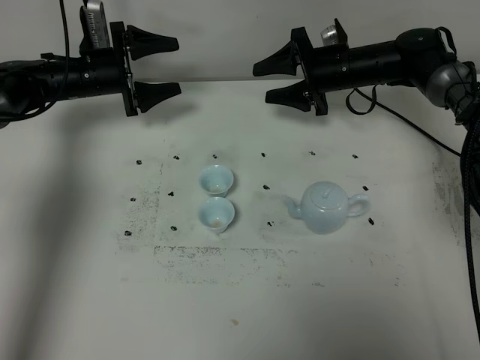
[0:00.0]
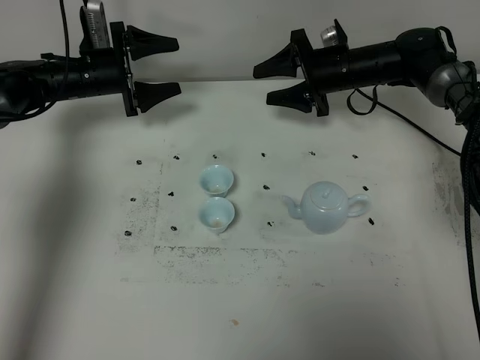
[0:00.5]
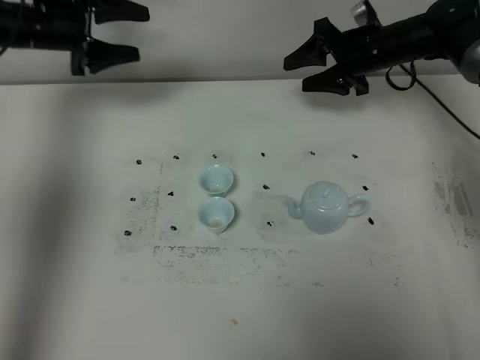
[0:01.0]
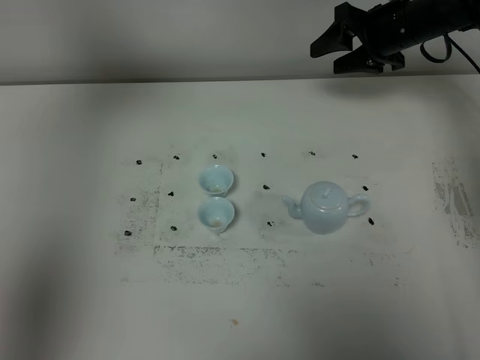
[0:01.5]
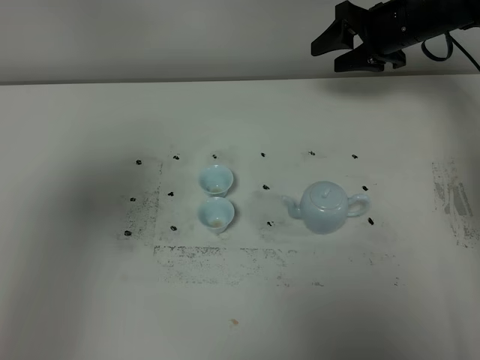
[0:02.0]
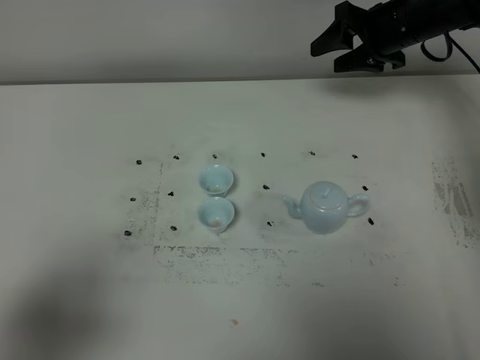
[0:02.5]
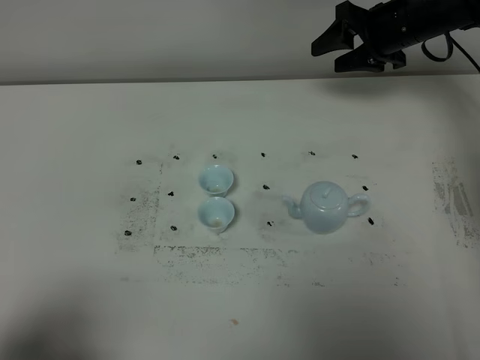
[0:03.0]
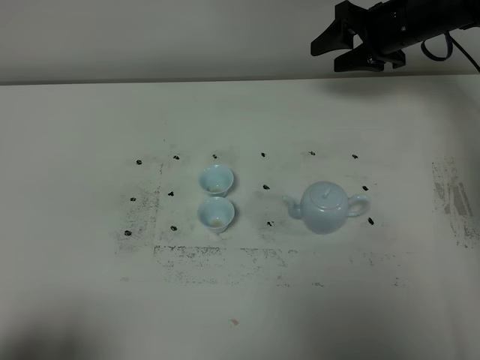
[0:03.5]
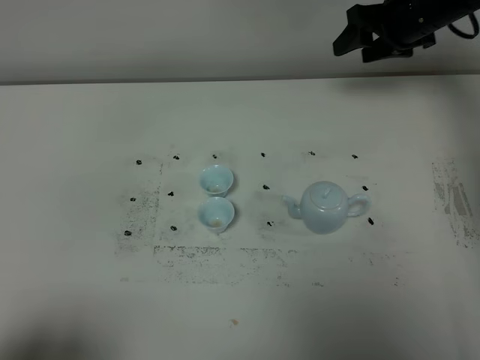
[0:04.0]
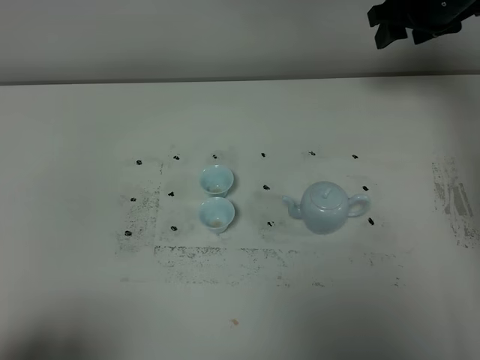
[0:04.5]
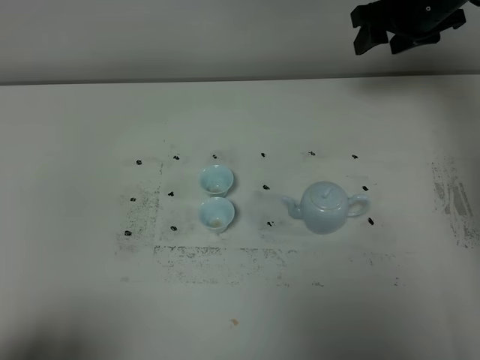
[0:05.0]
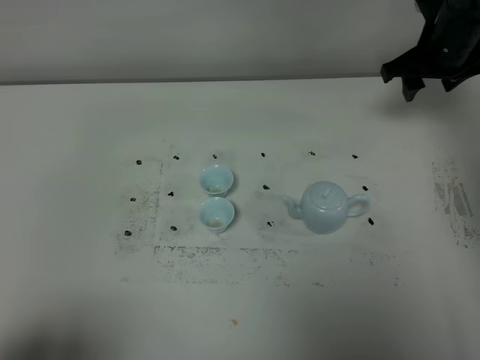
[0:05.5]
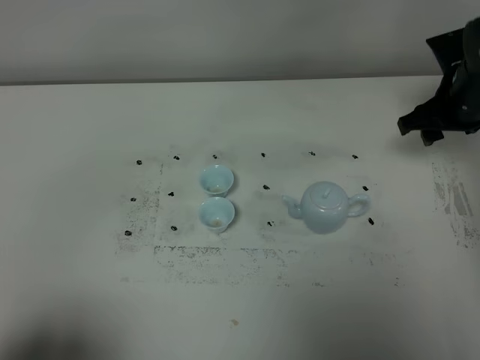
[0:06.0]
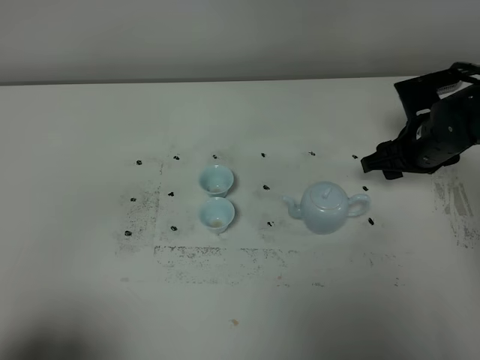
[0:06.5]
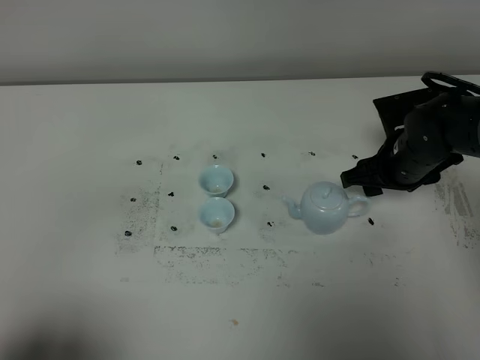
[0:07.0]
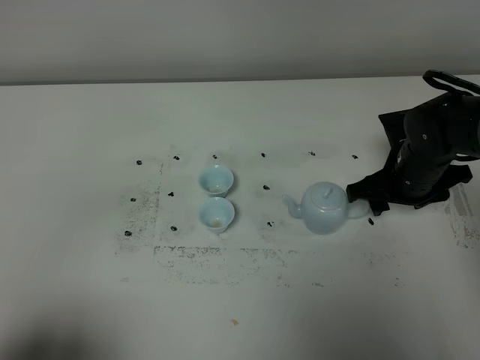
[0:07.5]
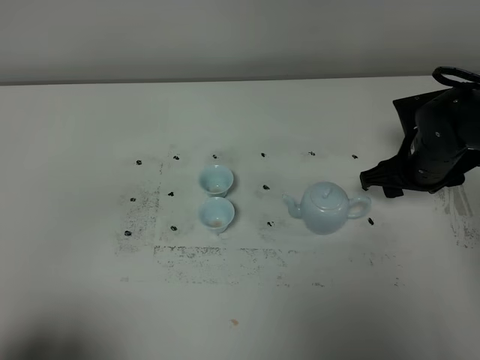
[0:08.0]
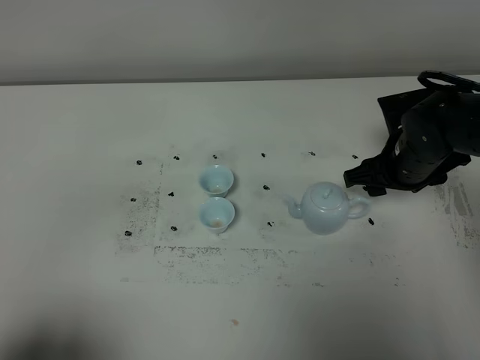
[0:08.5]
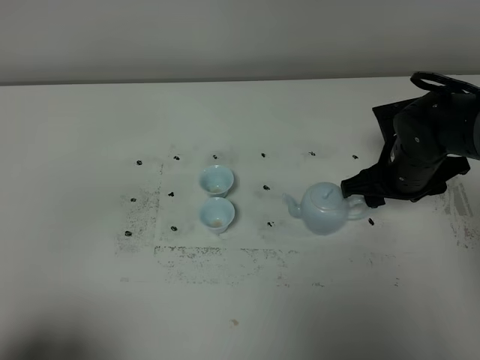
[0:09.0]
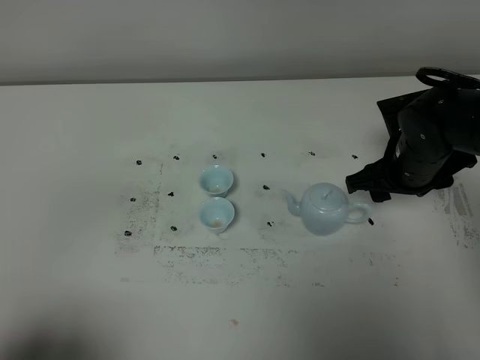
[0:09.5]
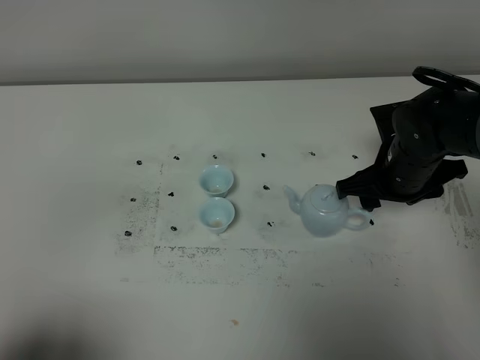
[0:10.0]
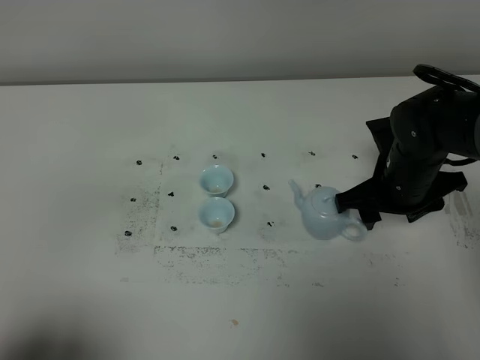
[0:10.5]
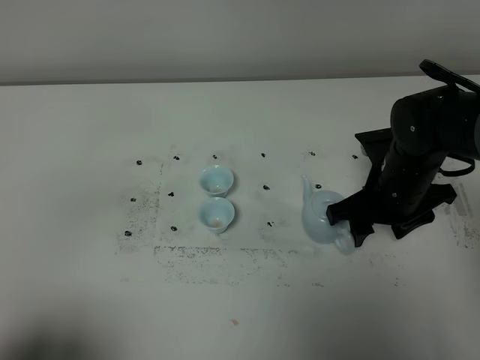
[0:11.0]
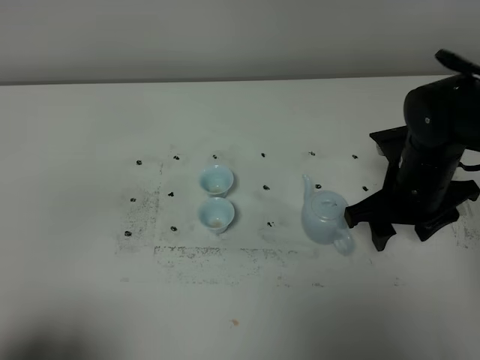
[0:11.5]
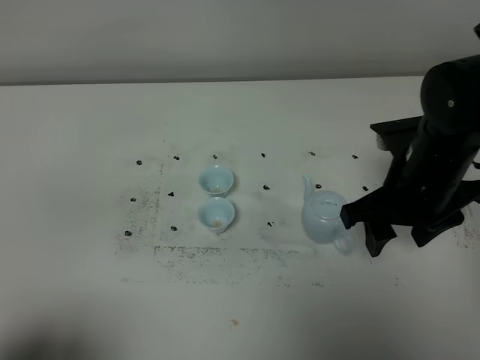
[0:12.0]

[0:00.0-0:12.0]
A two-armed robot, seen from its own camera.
Task of the whole recording: grasp the blue porcelain teapot and pour the tea into the two blue porcelain teacups one by one, put the blue porcelain teapot back in its original place.
0:00.0 to 0:02.0: The left gripper shifts approximately 50 cm backward and upward. The right gripper moves upward and to the right, about 10 cm.
0:02.0 to 0:04.0: The left gripper goes approximately 25 cm backward and downward.
0:04.0 to 0:06.0: The right gripper heads backward and downward, covering approximately 10 cm.
0:06.0 to 0:08.0: The right gripper travels downward and to the left by approximately 5 cm.
0:08.0 to 0:10.0: The grippers move only a little.
0:10.0 to 0:12.0: The right gripper shifts about 10 cm backward and upward.

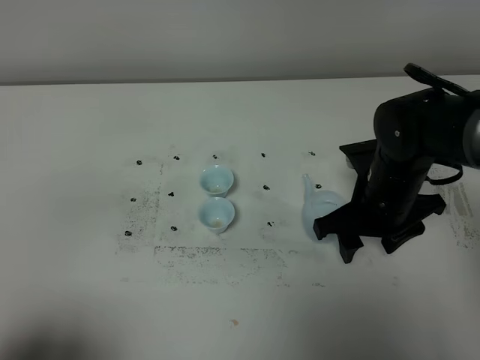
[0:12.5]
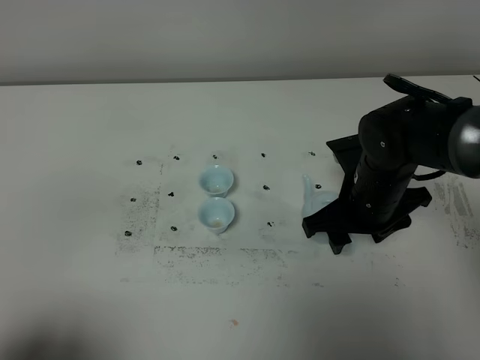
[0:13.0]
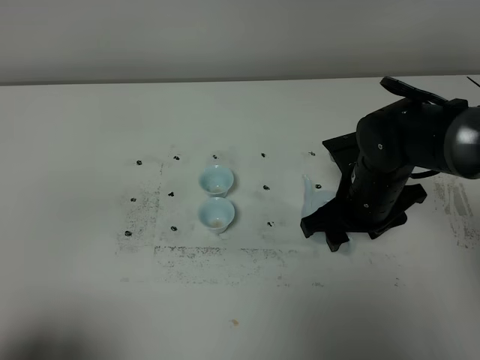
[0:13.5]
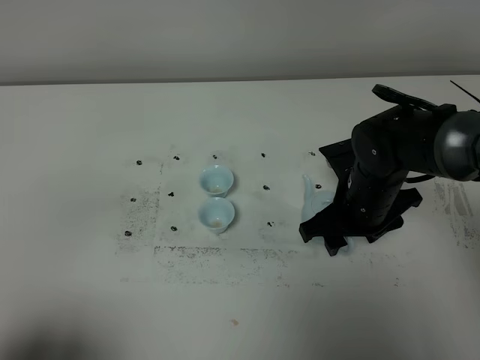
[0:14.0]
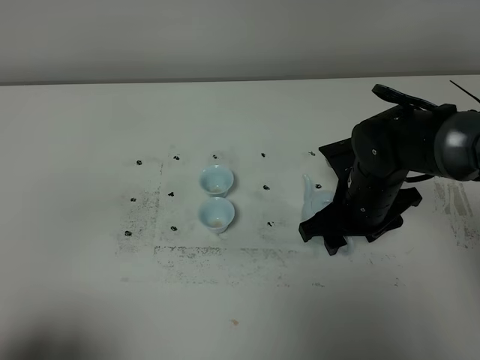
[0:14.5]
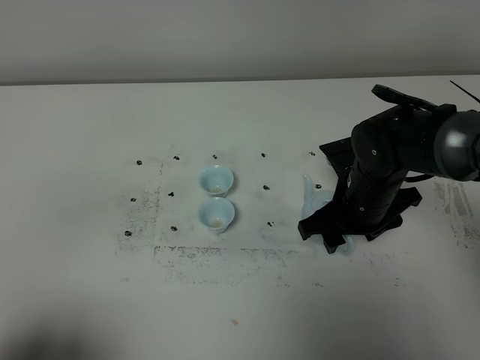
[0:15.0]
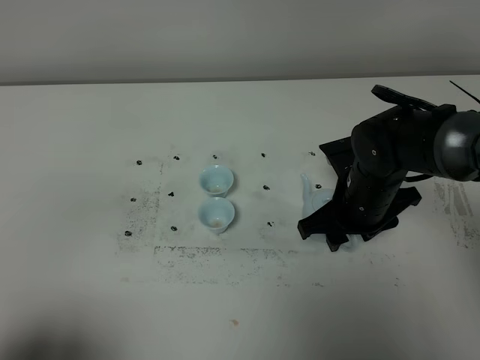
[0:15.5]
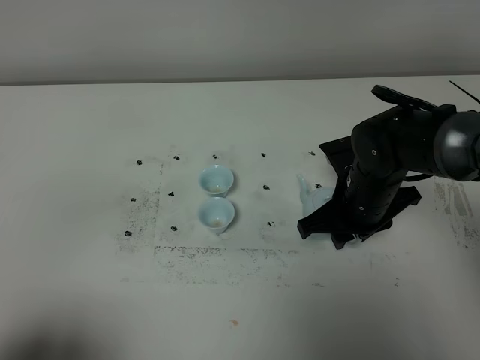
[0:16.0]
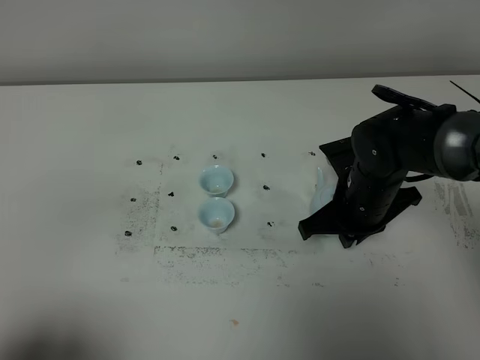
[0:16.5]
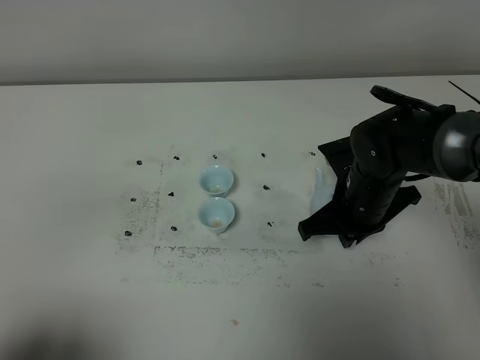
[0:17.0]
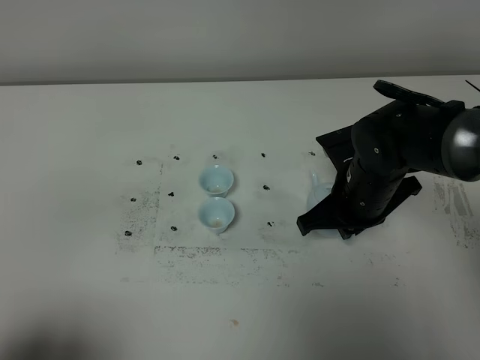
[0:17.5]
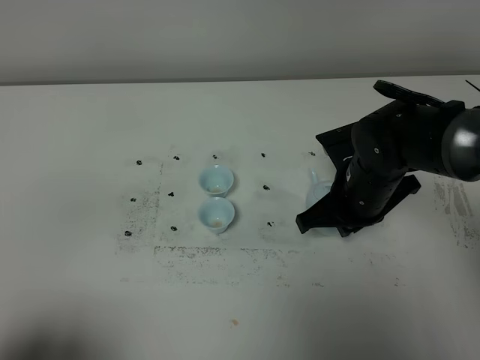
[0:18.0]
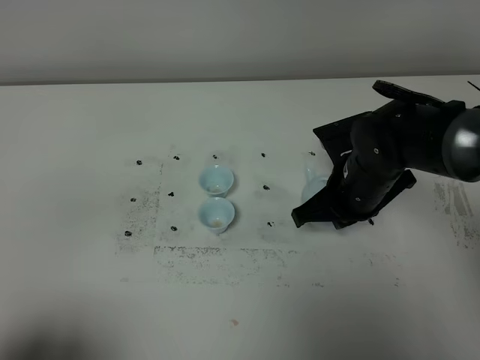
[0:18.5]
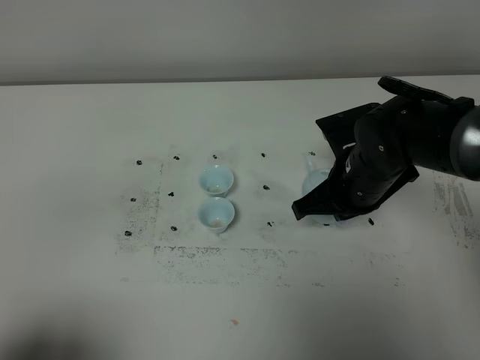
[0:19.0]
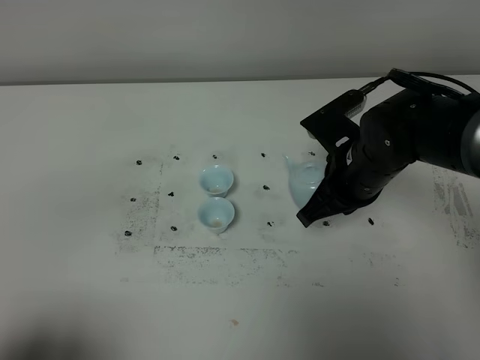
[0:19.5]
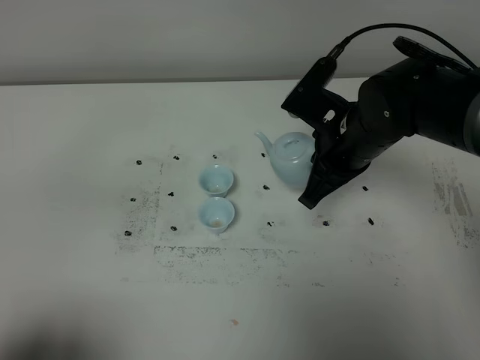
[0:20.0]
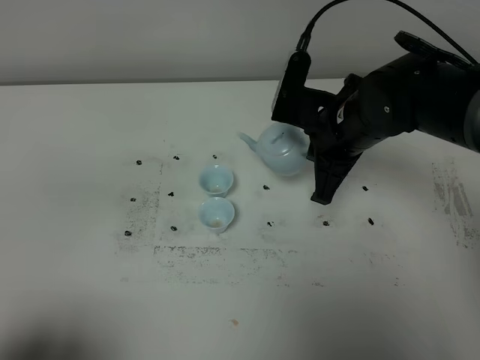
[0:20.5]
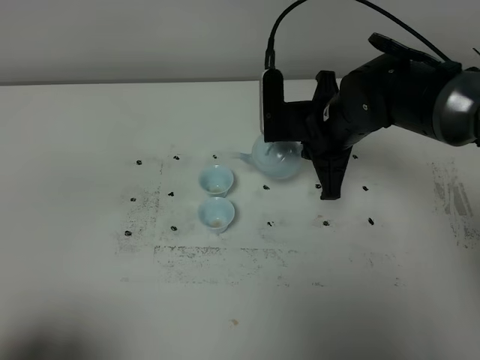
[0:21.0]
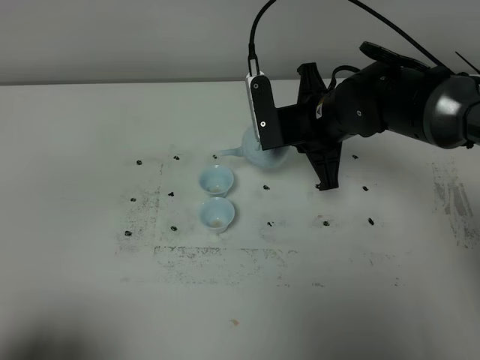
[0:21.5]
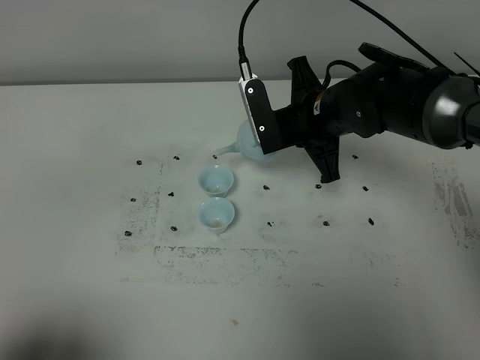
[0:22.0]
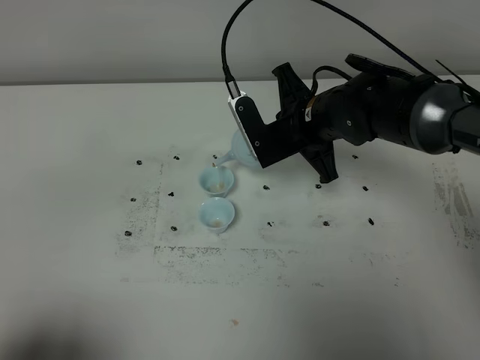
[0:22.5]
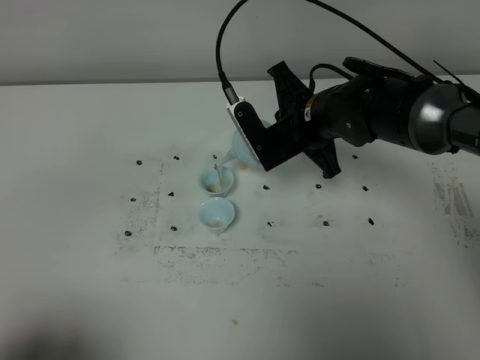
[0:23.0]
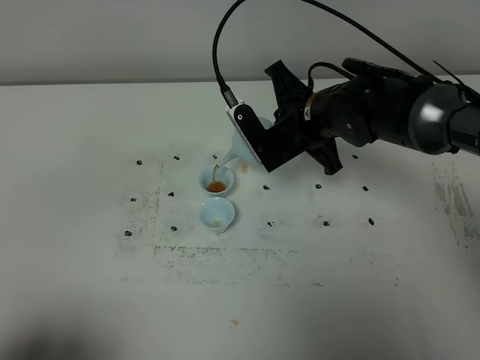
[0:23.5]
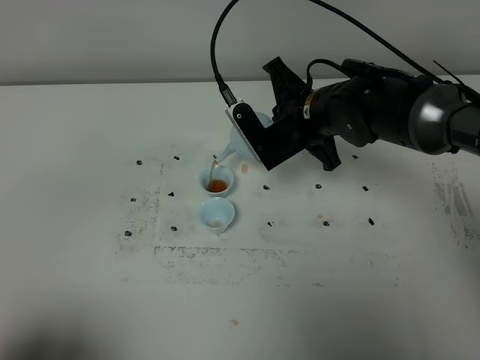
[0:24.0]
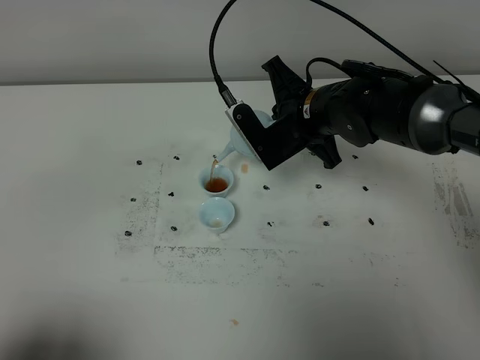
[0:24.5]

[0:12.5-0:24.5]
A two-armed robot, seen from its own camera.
Task of the whole recording: grasp the blue porcelain teapot and pour the tea into the two blue porcelain teacups one by one, put the blue porcelain teapot back in its original place.
Step, 0:12.5 to 0:19.0: Pick up the teapot with the right gripper.
0:12.5 to 0:14.5: There are only small adjustments of the grippers.
0:14.5 to 0:16.5: The right gripper closes up.
0:16.5 to 0:18.5: The grippers stay close to where they were, moving slightly.
0:18.5 to 0:20.5: The right gripper goes some 5 cm upward.
0:20.5 to 0:22.5: The right gripper ends up about 5 cm from where it was.
0:22.5 to 0:24.5: The grippers move only a little.

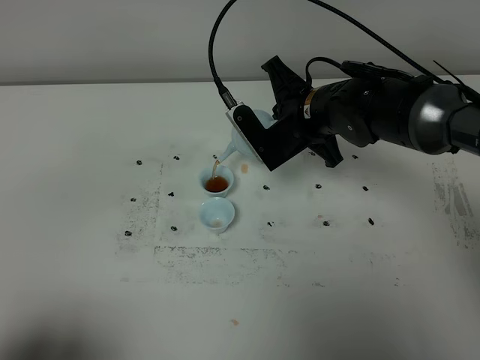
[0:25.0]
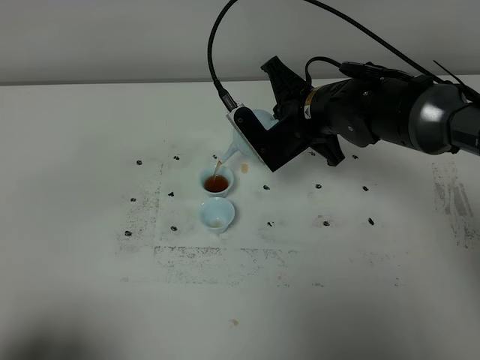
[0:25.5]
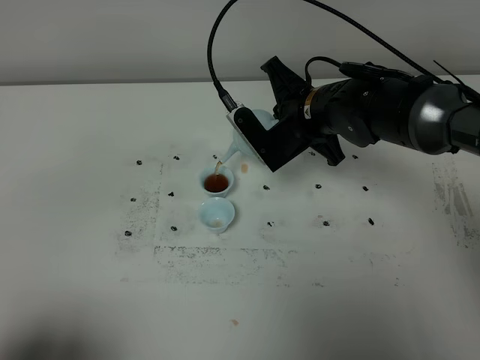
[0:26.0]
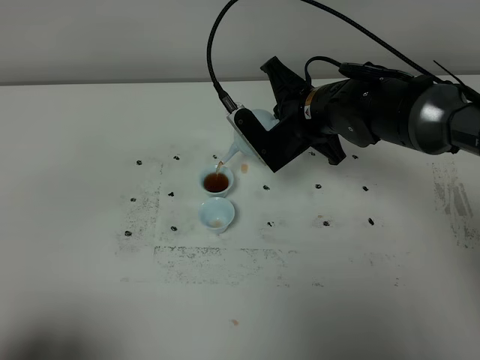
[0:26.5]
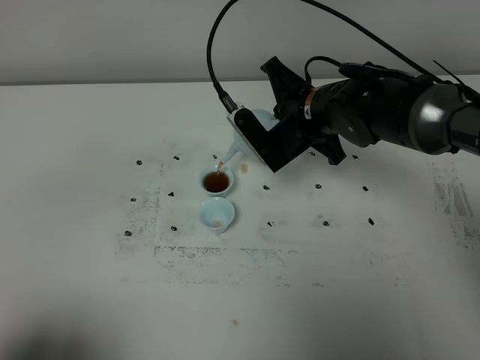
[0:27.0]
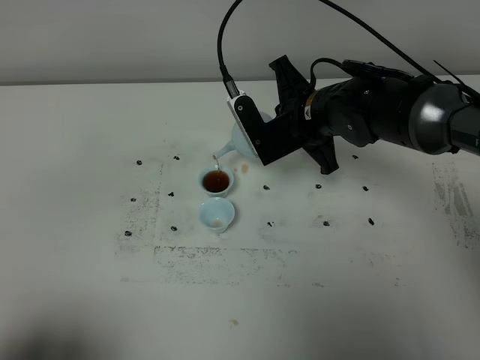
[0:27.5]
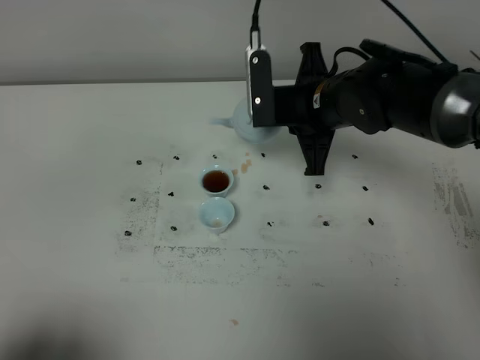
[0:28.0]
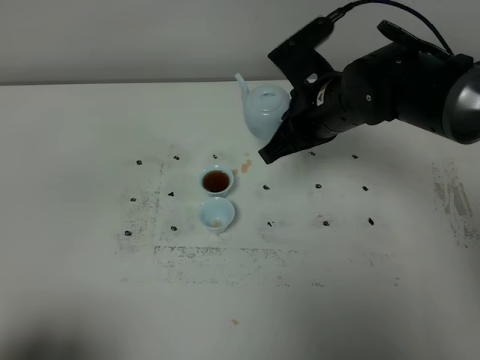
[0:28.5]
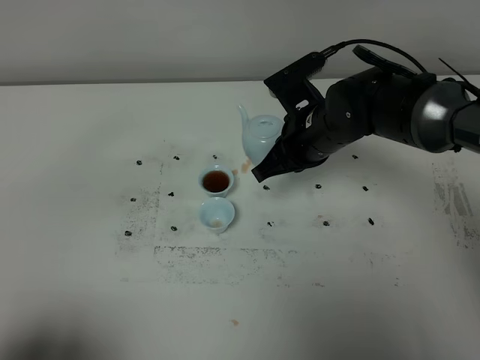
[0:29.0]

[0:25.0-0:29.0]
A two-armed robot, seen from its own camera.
Task of the whole recording: grasp the blue porcelain teapot and pour the tea into the two blue porcelain teacups one by one, put the blue porcelain teapot back in its original place.
0:25.0 to 0:27.0: The two grippers keep their place.
